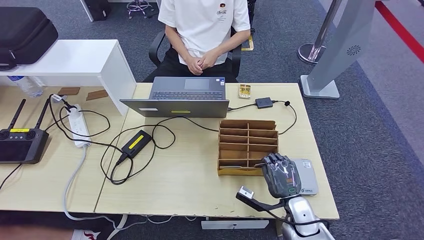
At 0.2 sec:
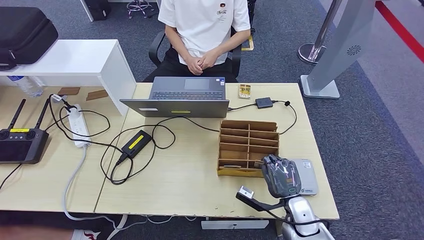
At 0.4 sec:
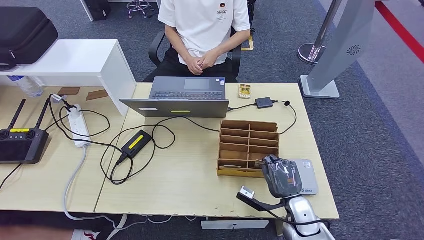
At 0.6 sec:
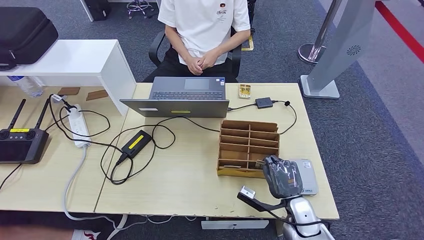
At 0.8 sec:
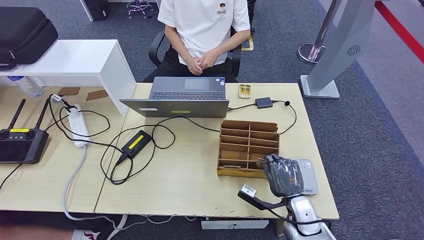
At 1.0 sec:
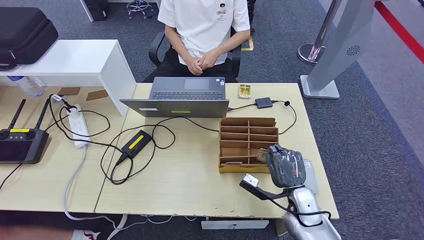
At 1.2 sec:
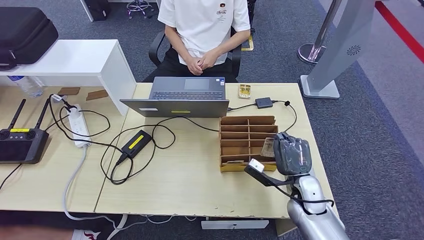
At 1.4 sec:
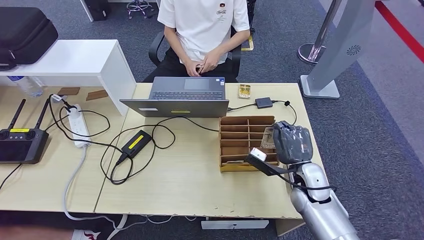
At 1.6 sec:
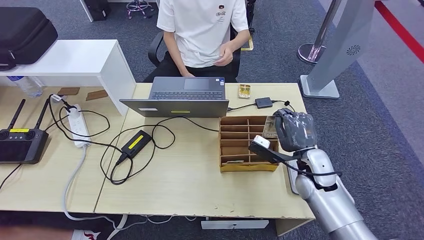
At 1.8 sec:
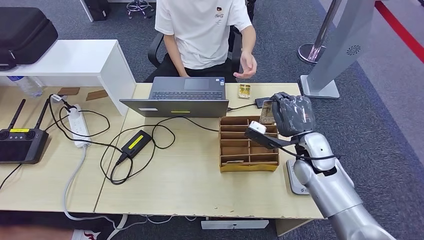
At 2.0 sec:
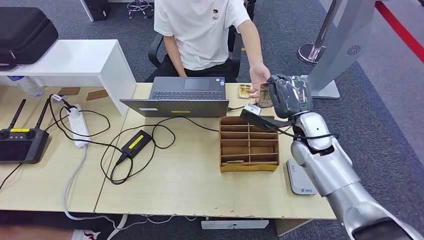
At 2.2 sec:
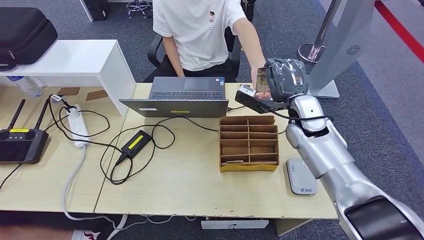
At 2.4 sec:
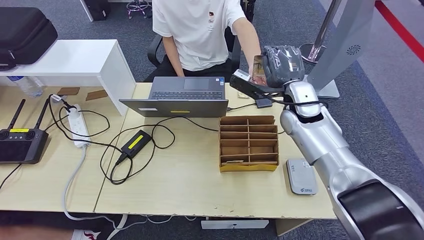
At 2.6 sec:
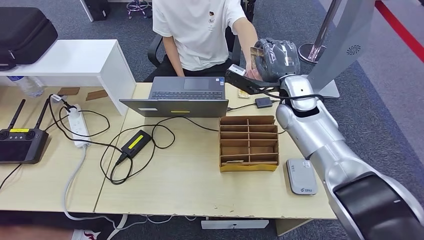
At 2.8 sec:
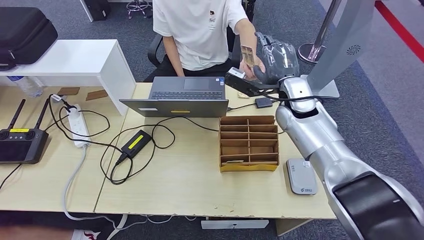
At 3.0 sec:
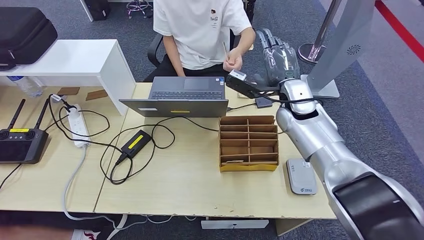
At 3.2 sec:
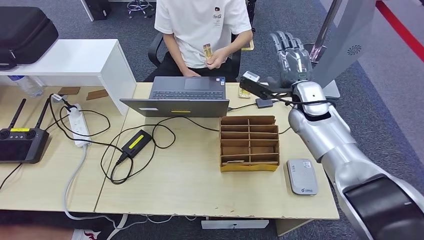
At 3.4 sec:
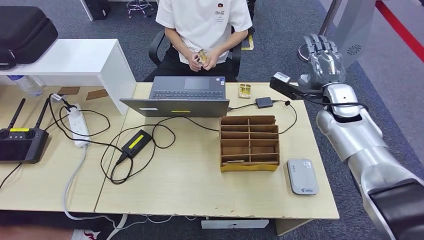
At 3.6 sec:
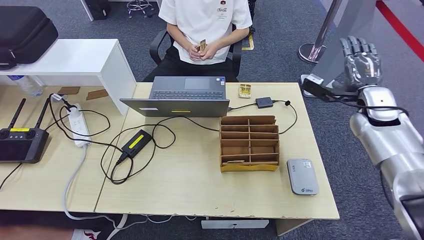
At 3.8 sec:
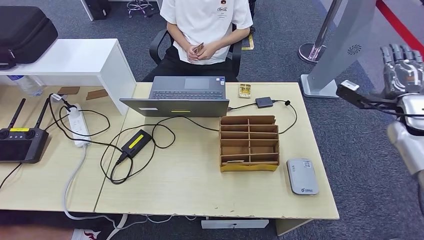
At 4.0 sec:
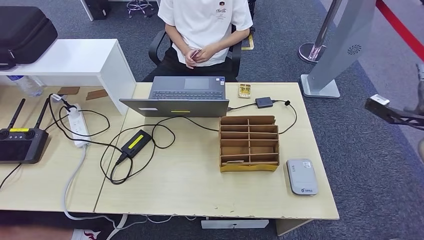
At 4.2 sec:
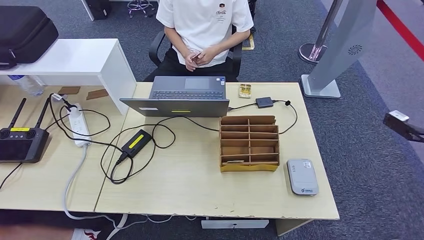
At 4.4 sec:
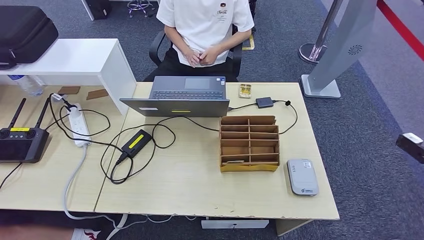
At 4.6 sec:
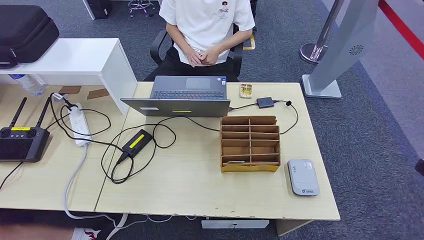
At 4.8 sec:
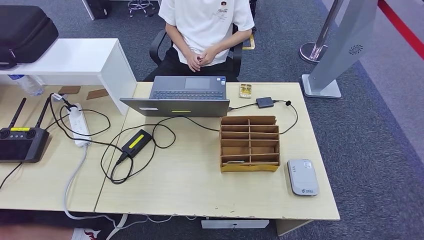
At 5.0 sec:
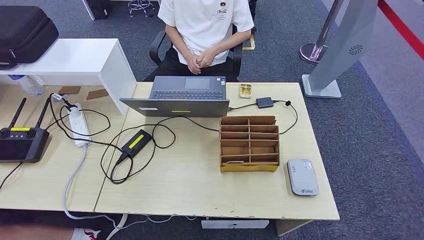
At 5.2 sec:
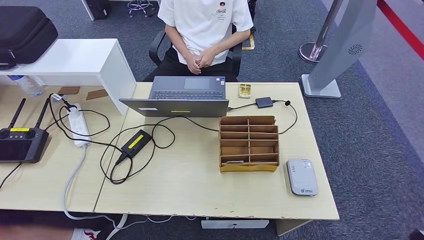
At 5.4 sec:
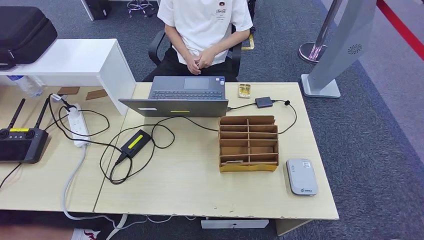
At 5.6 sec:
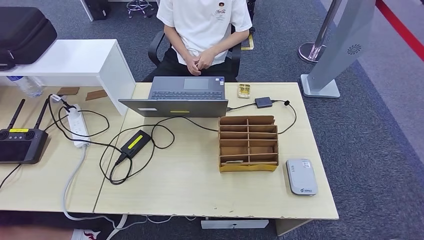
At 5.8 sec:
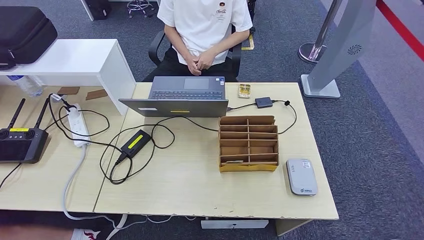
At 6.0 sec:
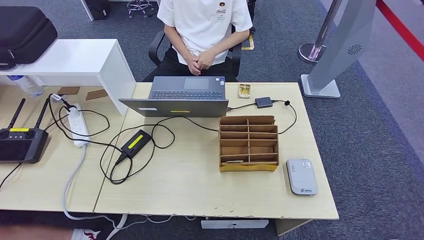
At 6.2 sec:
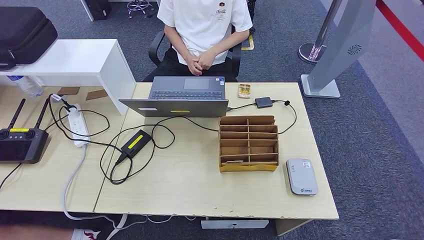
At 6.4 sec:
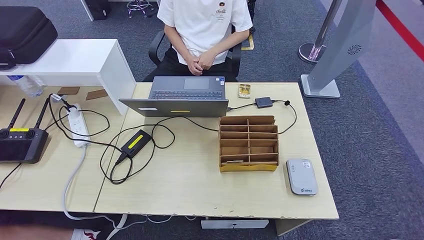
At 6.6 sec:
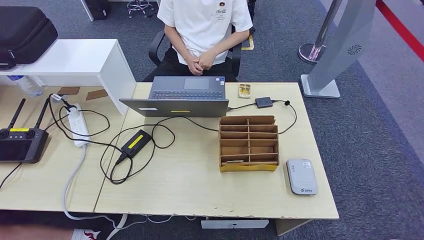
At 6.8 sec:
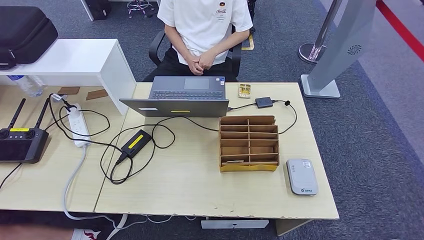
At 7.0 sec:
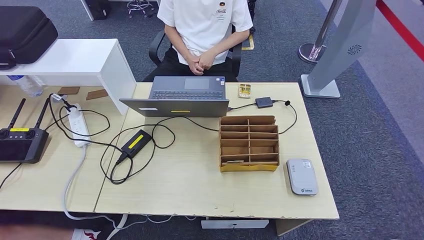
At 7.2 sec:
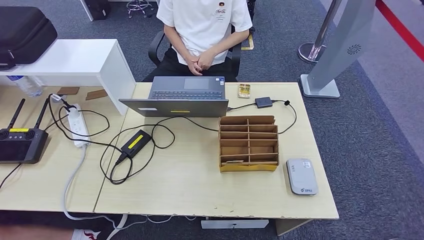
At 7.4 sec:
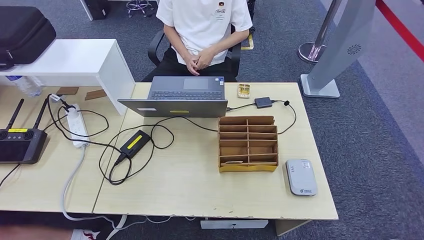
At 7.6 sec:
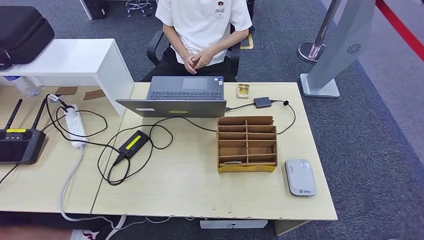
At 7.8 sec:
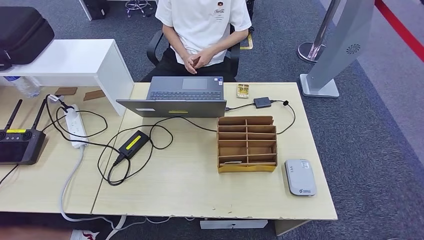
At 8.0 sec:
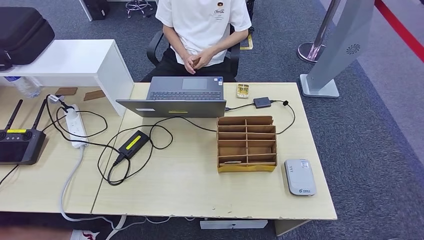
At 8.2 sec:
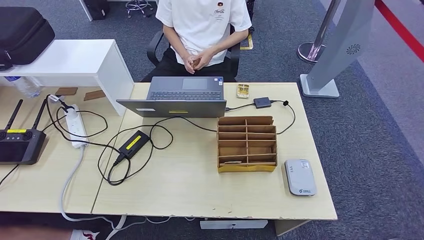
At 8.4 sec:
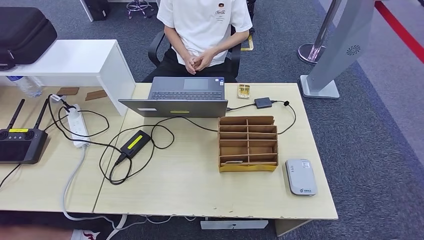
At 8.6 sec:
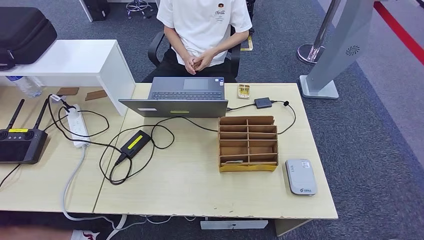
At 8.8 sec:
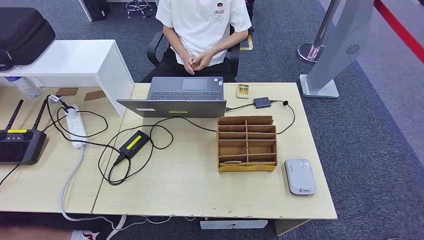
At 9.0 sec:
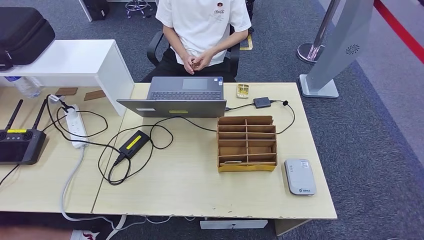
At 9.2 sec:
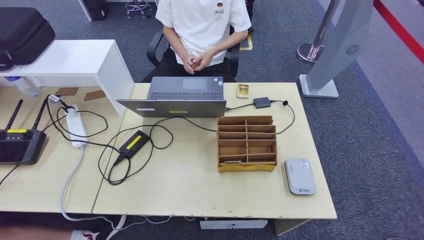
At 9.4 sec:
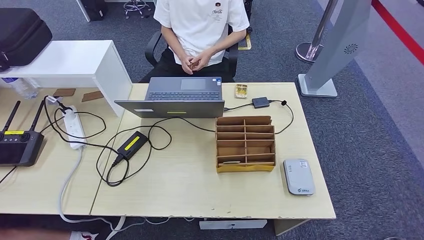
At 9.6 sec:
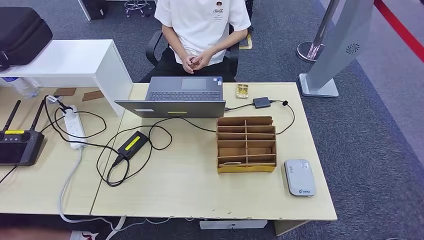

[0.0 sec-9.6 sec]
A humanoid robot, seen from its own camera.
Step, 1.2 sec to 9.4 sec: Hand the room key to the person.
0.0 sec to 1.6 sec: The right hand travels upward and forward by about 15 cm.
1.6 sec to 3.2 sec: The right hand moves upward and forward, about 20 cm.
3.2 sec to 4.8 sec: The right hand is displaced to the right and backward by about 50 cm.
4.8 sec to 6.4 sec: The right hand goes approximately 40 cm to the left and downward.
6.4 sec to 8.0 sec: The right hand reaches about 10 cm to the left, then returns, while the left hand travels to the left and backward by about 25 cm.
8.0 sec to 9.6 sec: The left hand shifts about 5 cm to the right.
